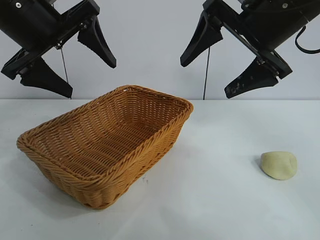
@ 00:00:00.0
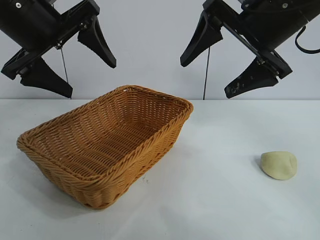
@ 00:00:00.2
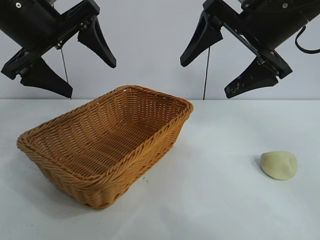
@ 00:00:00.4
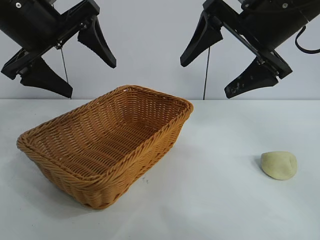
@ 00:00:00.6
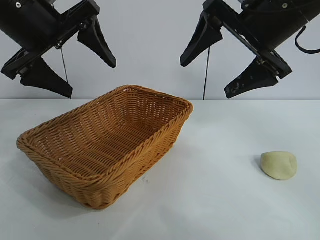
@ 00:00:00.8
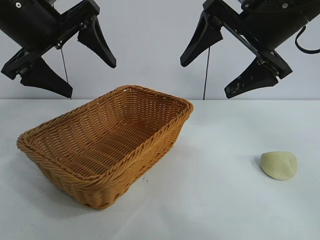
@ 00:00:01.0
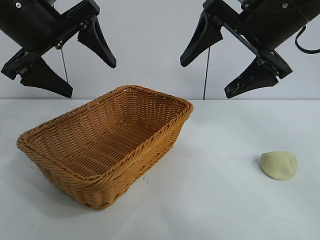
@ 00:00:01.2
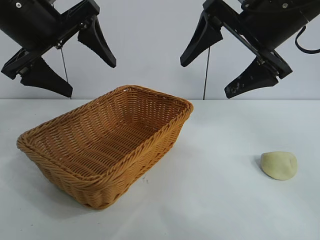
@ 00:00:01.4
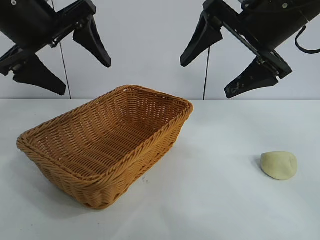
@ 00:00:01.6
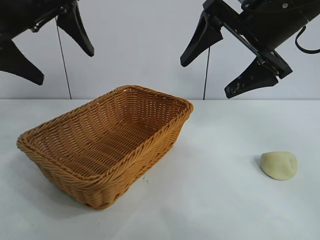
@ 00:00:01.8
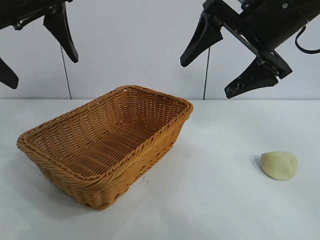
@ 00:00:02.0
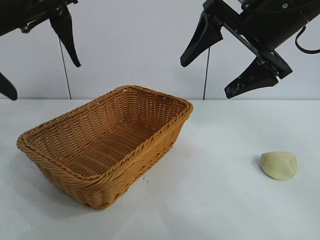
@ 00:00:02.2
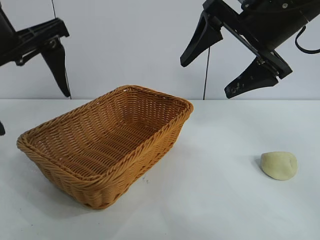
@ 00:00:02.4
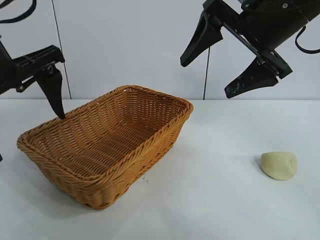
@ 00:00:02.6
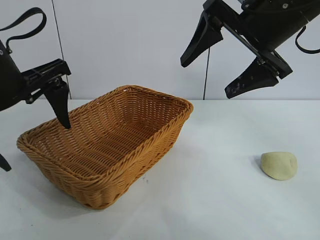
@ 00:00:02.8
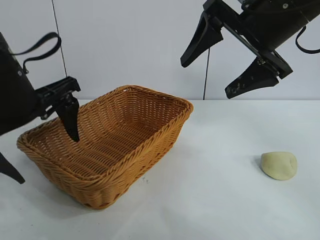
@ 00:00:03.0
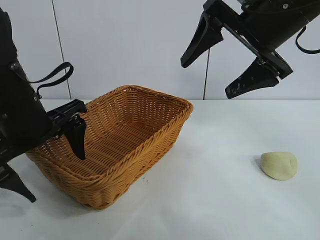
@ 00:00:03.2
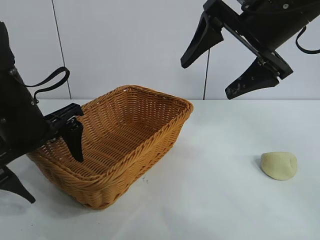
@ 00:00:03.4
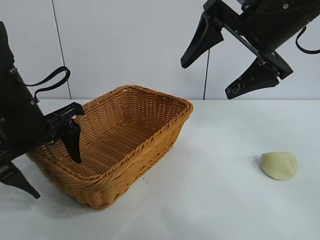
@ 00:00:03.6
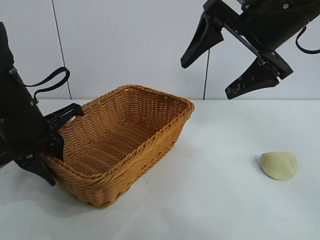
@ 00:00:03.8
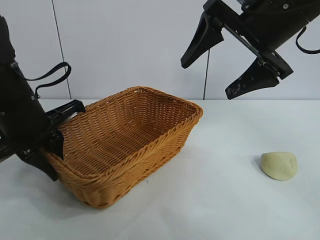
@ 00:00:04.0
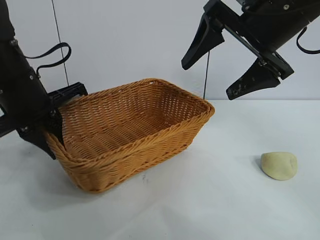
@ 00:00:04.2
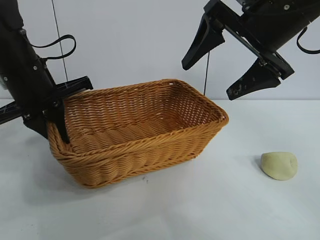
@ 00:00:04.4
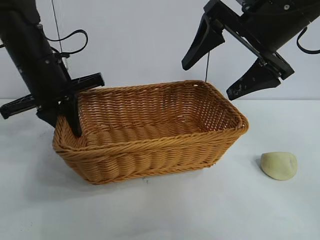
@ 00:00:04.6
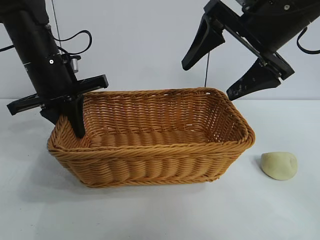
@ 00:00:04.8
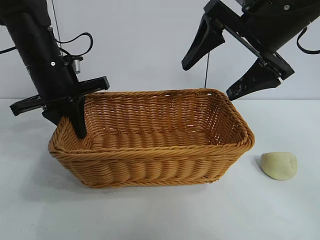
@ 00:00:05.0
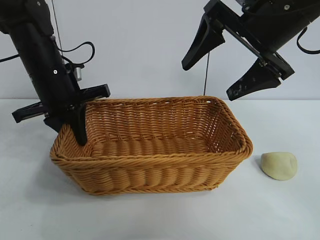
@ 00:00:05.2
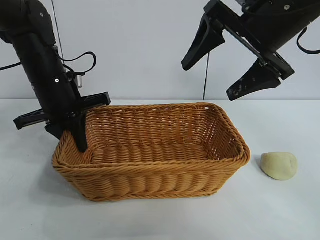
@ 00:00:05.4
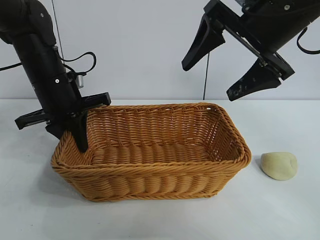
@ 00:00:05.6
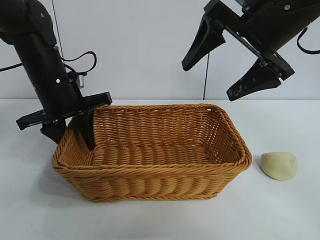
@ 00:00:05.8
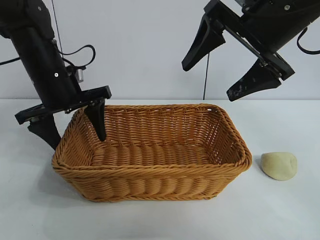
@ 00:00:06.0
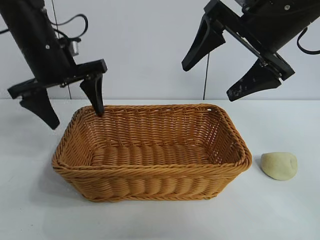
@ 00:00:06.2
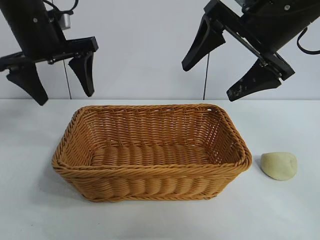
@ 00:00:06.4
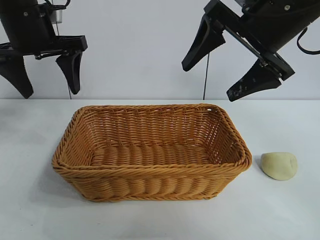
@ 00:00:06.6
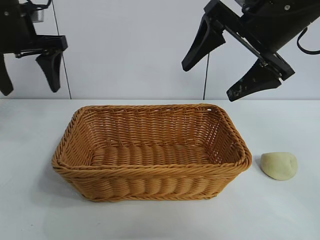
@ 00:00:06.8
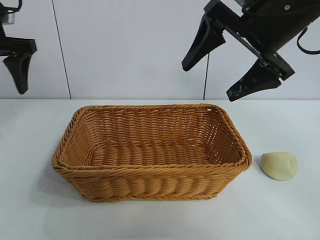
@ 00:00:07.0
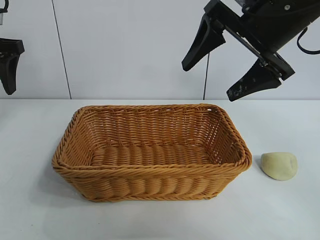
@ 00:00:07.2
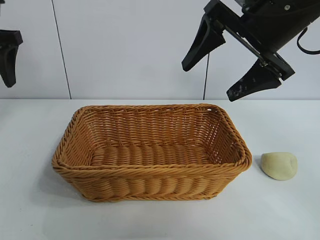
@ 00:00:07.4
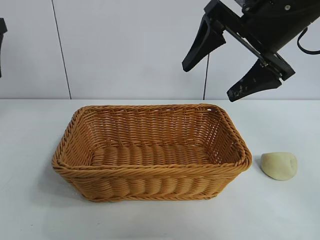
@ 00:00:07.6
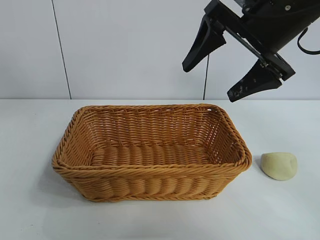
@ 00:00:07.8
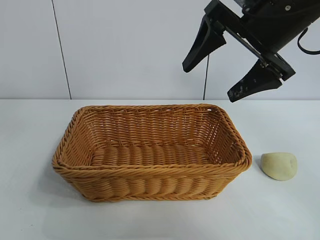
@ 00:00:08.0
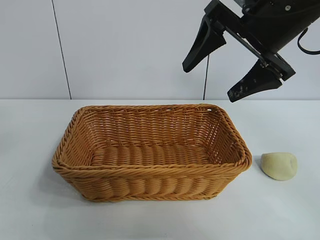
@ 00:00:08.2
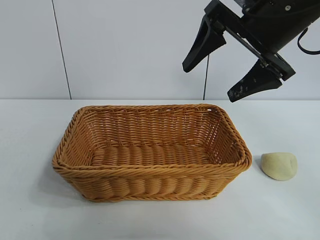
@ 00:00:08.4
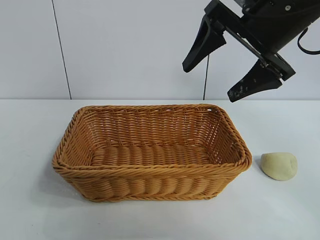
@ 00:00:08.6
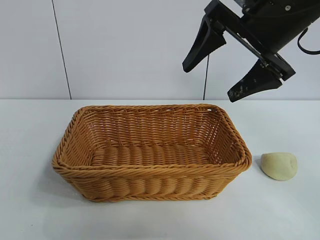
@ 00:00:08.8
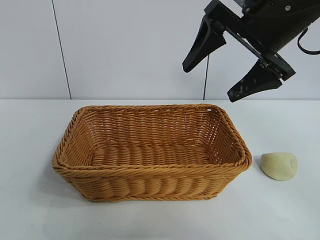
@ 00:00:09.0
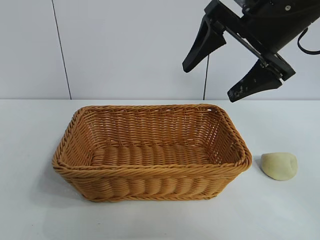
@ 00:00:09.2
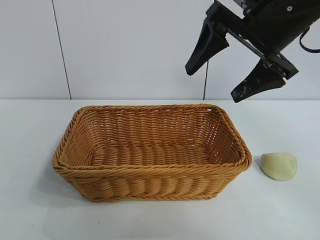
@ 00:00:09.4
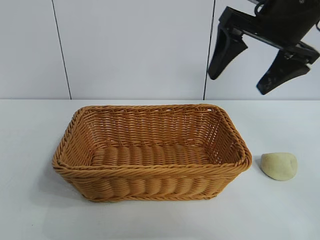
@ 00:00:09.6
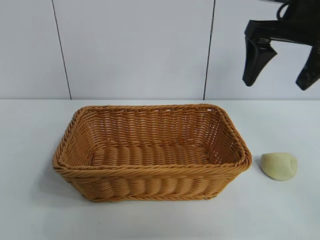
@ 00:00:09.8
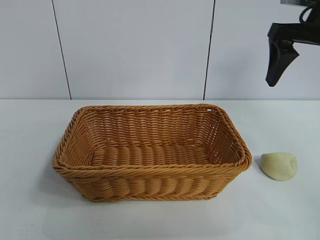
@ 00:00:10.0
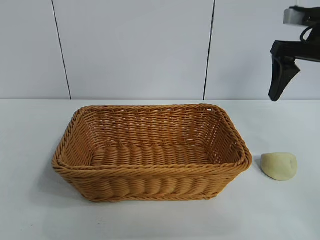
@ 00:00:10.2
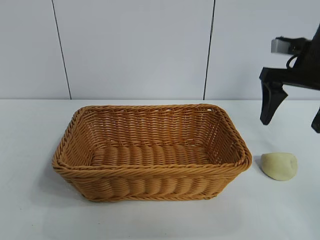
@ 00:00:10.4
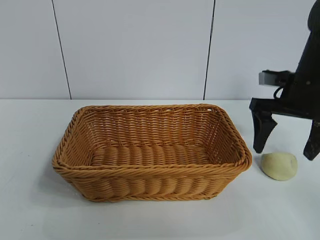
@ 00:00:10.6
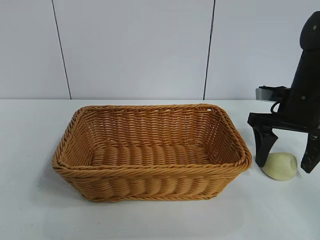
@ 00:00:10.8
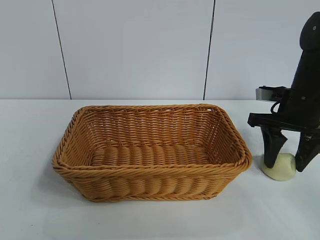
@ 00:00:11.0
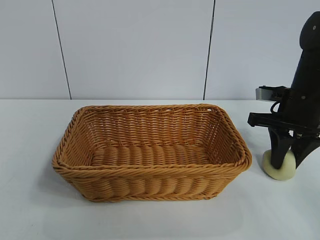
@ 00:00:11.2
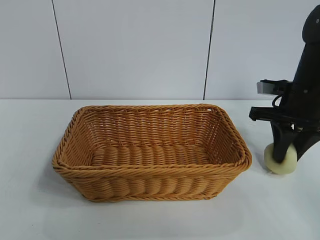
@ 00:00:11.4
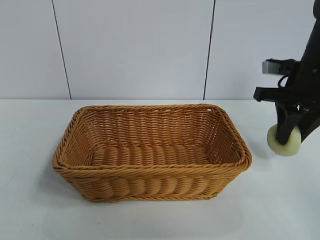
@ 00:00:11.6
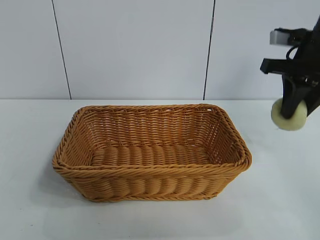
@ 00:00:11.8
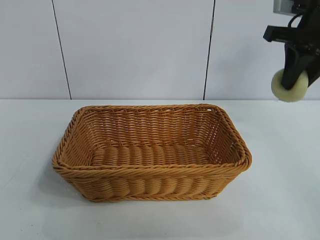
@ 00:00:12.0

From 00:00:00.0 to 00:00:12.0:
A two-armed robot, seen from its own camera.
Task of the whole recording: pick up the egg yolk pastry and put it into the basket.
Step, from 00:00:01.6 to 00:00:03.8: Grasp the basket with left gripper.
Step, from 00:00:04.0 to 00:00:05.8: Place the basket in the center of view with left gripper.
Step, from 00:00:06.0 to 00:00:11.0: Grasp egg yolk pastry with right gripper.

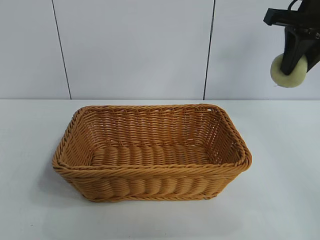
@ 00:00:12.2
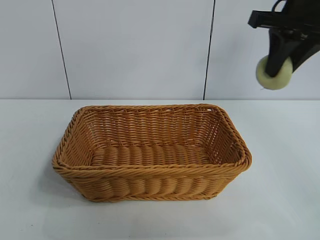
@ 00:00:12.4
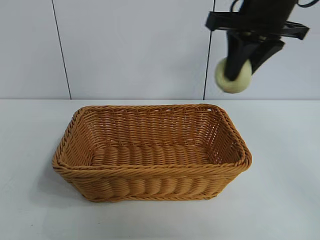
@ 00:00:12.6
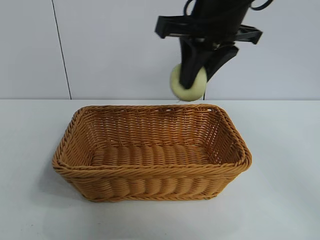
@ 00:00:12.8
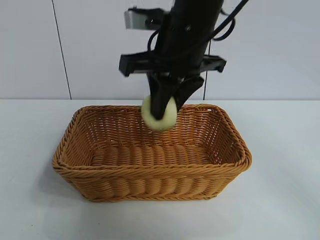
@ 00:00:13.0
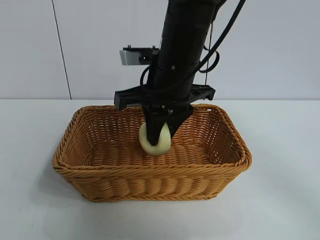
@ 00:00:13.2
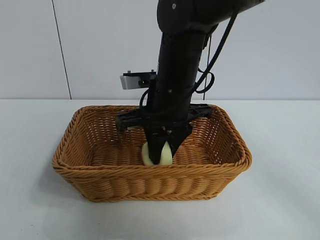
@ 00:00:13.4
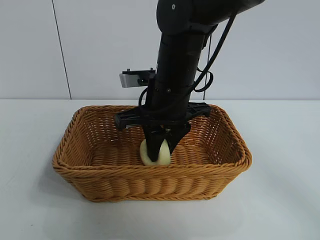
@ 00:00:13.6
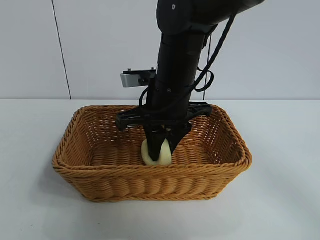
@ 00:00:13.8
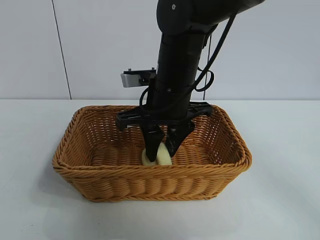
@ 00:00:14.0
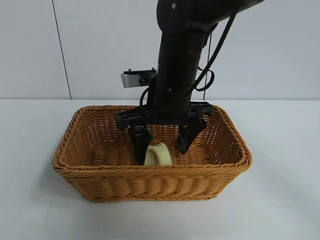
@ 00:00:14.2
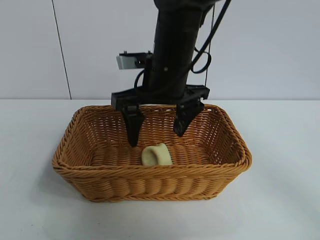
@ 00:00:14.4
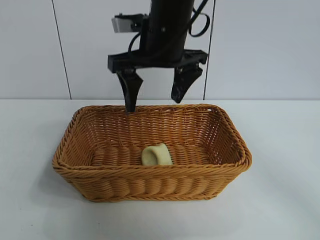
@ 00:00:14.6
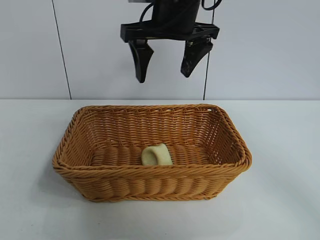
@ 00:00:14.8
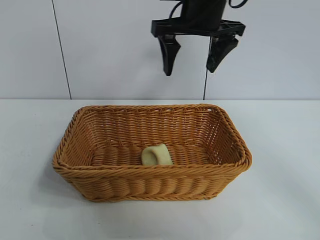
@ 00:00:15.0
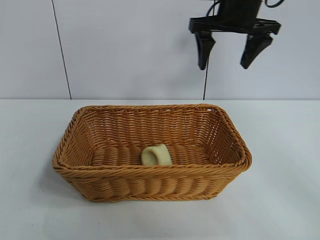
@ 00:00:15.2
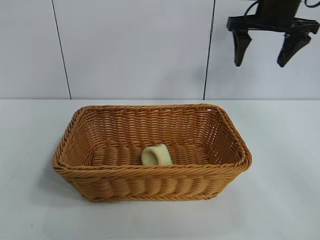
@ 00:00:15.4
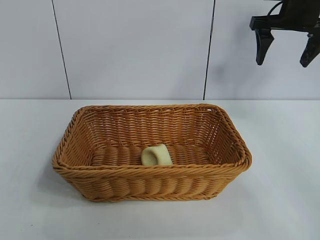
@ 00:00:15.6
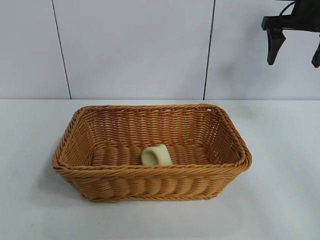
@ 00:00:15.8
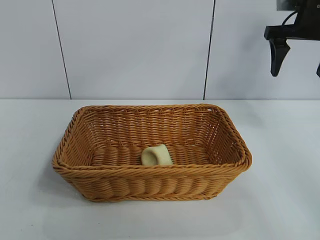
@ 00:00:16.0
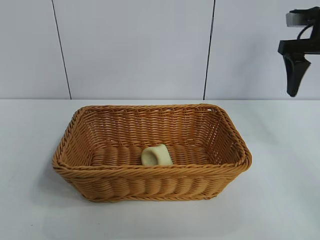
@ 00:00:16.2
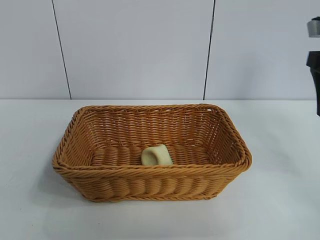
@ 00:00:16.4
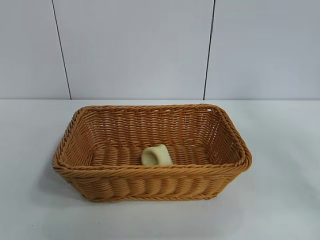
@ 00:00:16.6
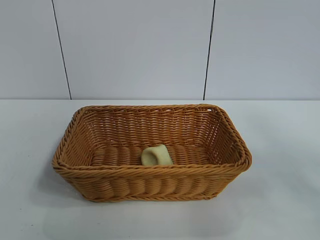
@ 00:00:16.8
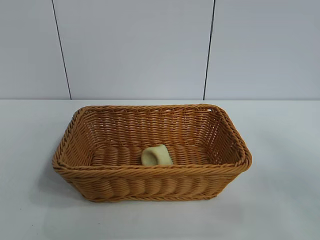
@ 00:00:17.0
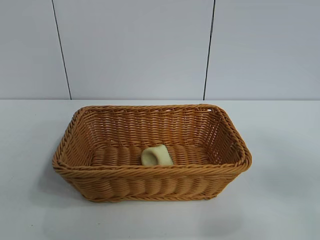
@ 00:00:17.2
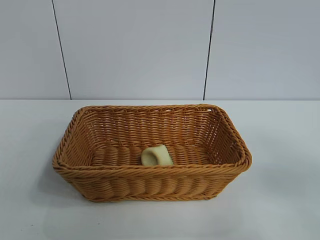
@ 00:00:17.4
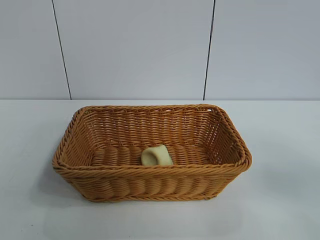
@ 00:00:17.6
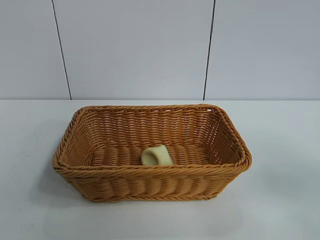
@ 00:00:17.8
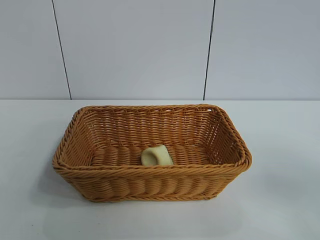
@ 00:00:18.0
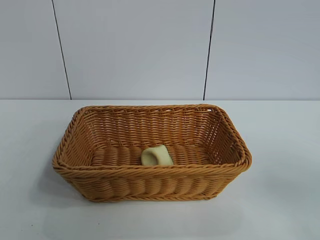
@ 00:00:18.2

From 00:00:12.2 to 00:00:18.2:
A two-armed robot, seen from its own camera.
Task of the whole recording: pick up the egg yolk pastry and put it into the basket.
Step, from 00:00:12.2 to 00:00:14.0: Place the egg yolk pastry in the basket with right gripper.
